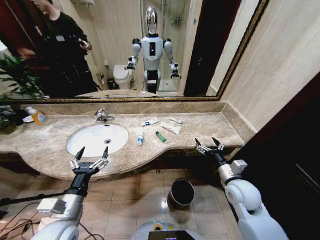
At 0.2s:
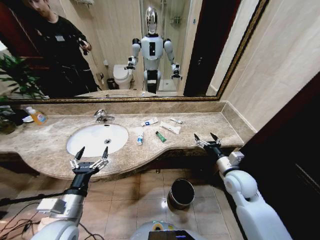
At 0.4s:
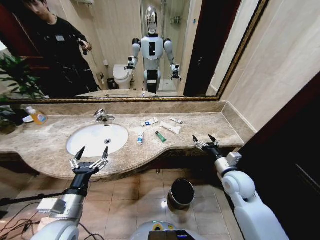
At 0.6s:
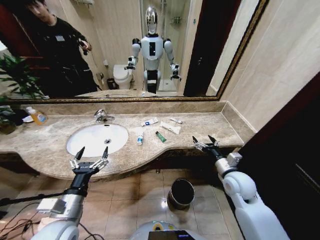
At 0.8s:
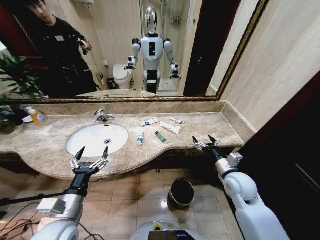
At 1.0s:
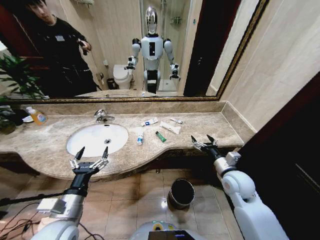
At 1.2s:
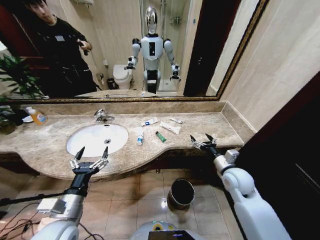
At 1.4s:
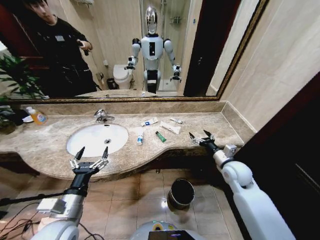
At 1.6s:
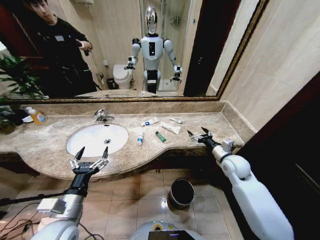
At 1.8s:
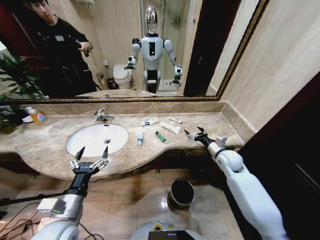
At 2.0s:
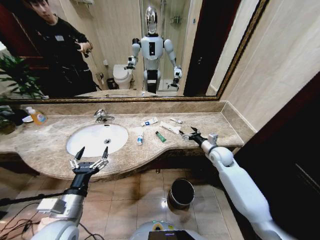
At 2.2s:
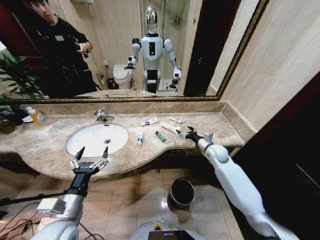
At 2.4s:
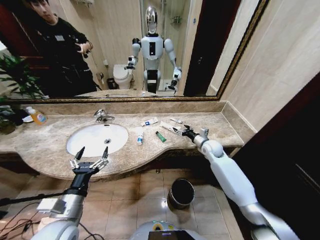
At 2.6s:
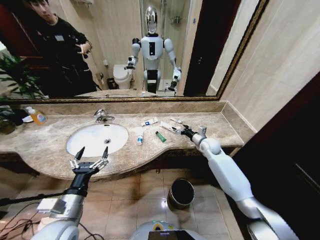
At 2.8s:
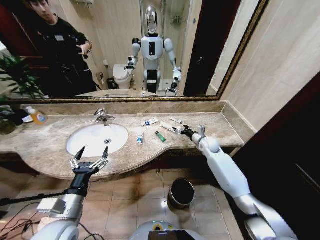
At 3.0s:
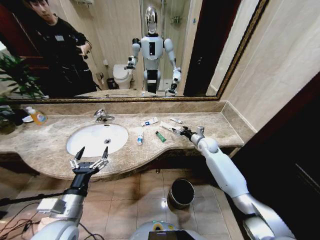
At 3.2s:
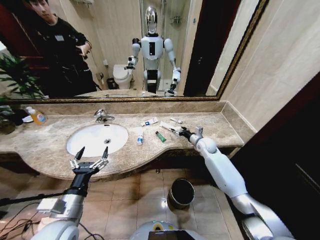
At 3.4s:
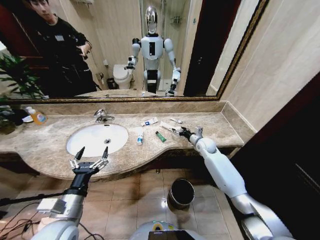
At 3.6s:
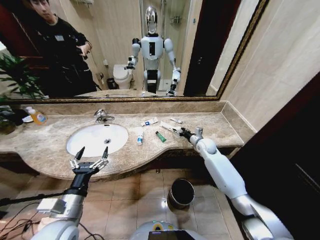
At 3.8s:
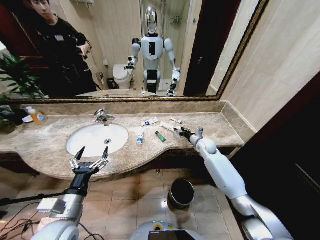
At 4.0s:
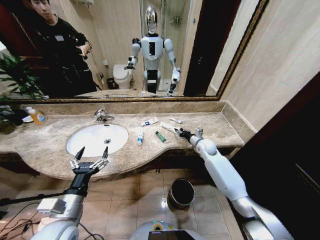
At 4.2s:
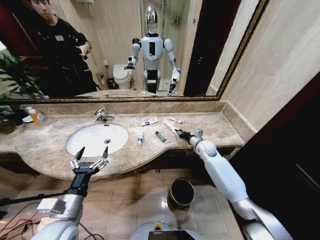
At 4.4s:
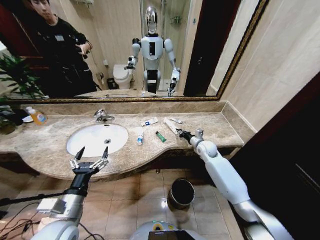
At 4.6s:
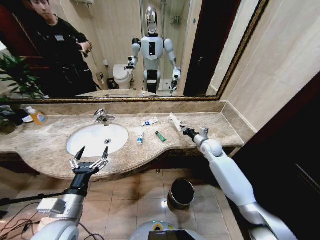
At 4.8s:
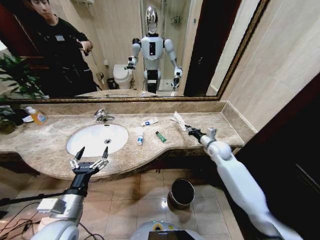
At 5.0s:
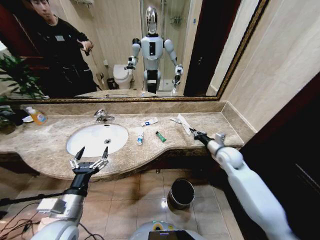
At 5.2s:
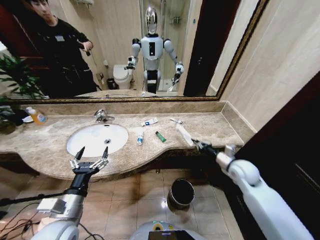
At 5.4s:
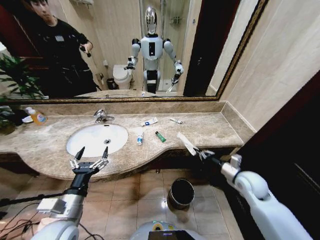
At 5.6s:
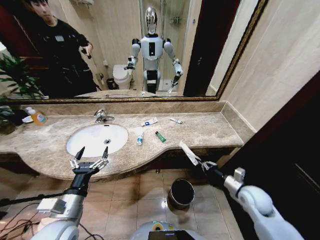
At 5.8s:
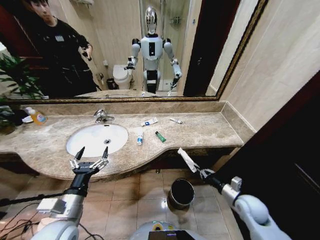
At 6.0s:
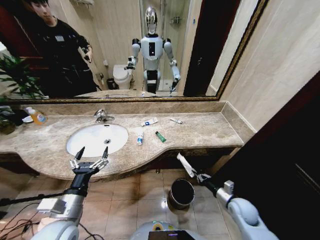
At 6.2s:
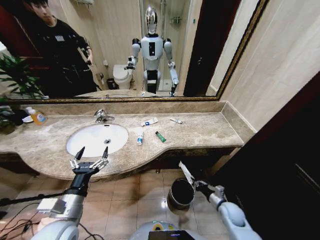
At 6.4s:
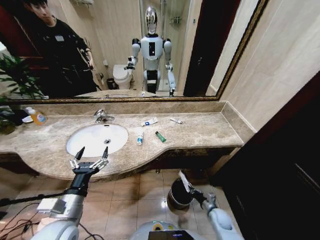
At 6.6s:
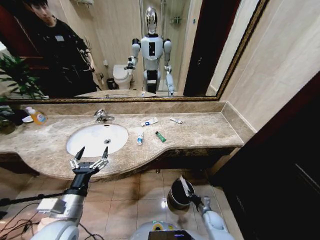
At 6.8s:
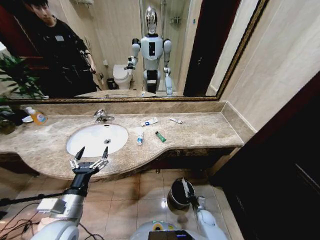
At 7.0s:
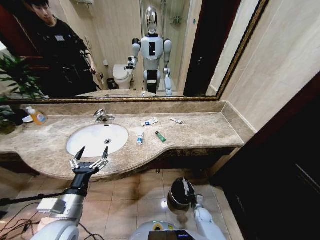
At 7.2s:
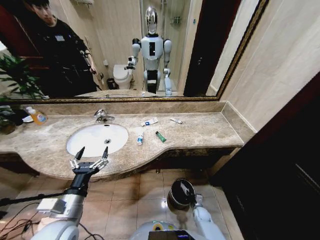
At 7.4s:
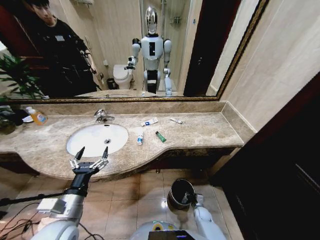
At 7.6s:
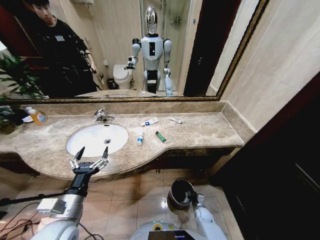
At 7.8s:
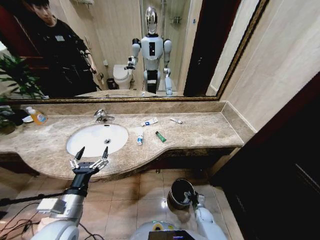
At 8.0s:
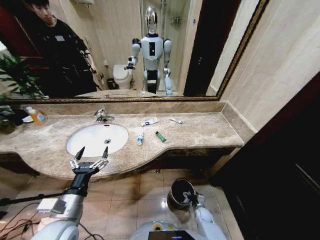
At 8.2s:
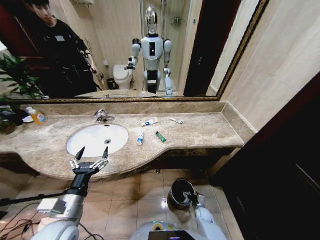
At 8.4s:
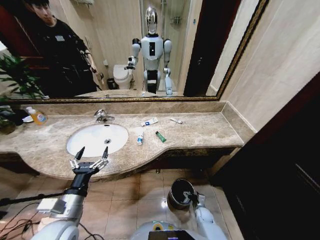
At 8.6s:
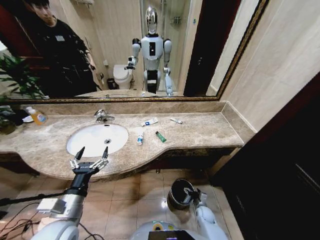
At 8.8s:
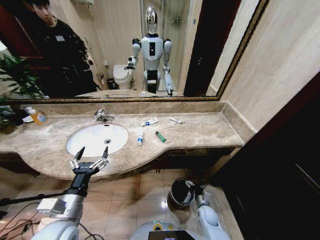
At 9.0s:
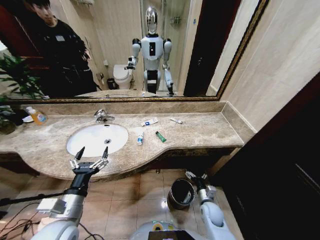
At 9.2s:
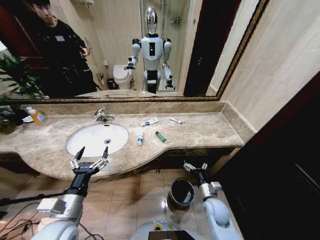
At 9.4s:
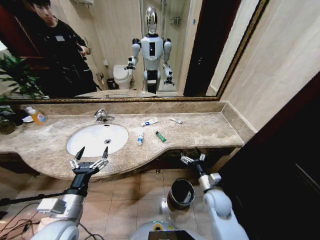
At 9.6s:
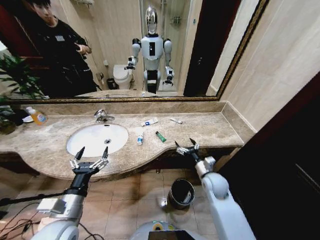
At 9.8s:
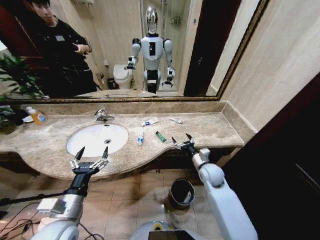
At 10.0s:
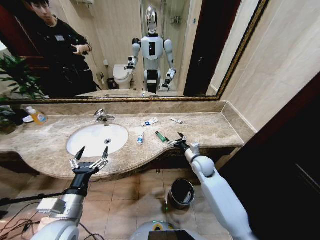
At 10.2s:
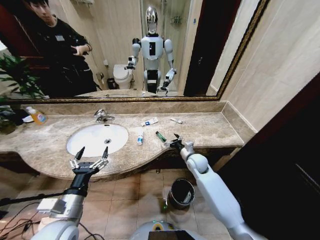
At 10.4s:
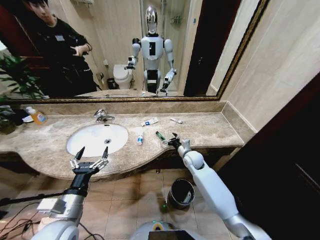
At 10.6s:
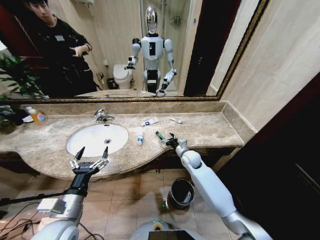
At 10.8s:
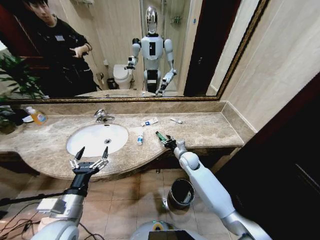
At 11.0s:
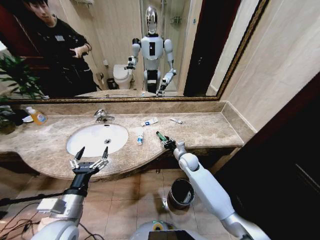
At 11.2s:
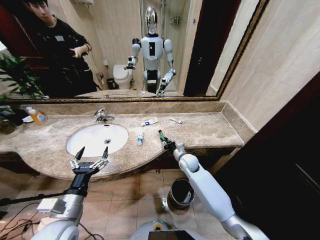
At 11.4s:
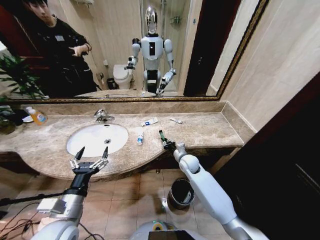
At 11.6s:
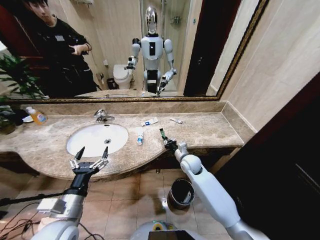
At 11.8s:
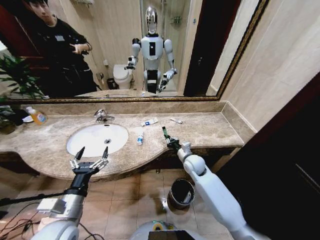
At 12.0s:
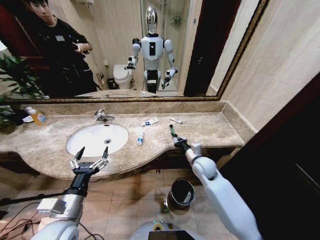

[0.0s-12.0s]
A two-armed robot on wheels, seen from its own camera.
Task of the whole recording: Pick up the trash from the sink and place it in the trash bin.
1.6s to 3.0s: The right gripper shifts some 15 cm forward.
3.0s to 4.4s: The right gripper closes its fingers.
4.4s to 6.0s: The right gripper is displaced backward and downward by approximately 30 cm.
6.0s to 7.6s: The right gripper heads downward and to the left, covering approximately 25 cm, and opens its fingers.
7.6s to 9.0s: The right gripper heads upward, covering about 15 cm, and opens.
9.0s to 10.4s: The right gripper moves forward and upward, some 25 cm.
10.4s to 12.0s: The right gripper goes some 5 cm backward, and closes.

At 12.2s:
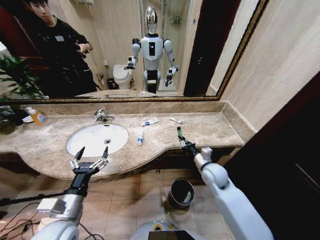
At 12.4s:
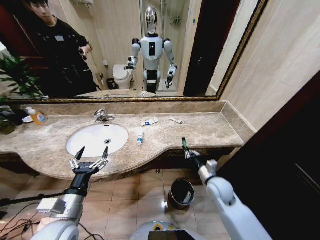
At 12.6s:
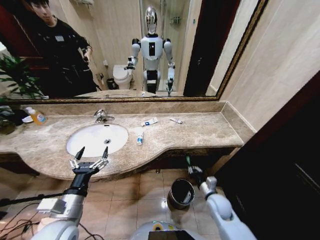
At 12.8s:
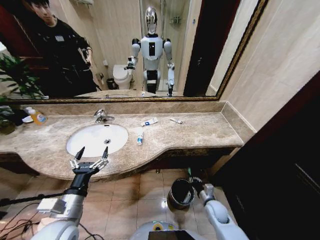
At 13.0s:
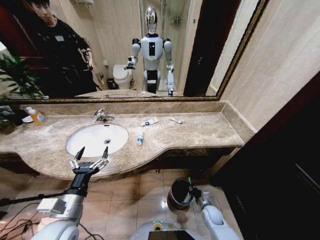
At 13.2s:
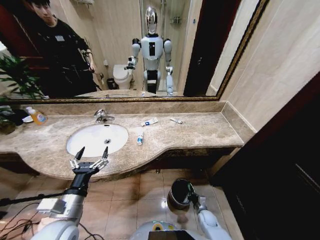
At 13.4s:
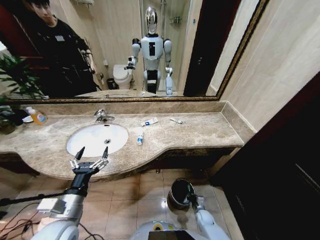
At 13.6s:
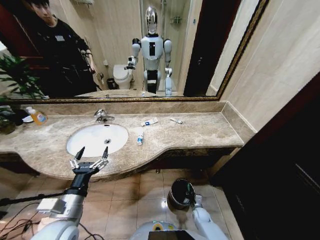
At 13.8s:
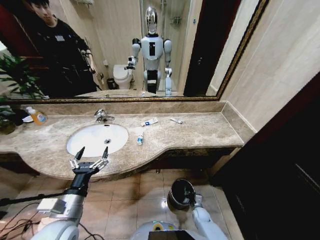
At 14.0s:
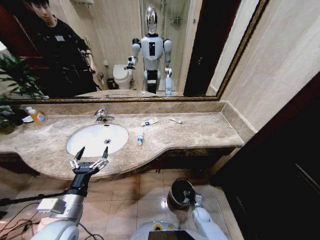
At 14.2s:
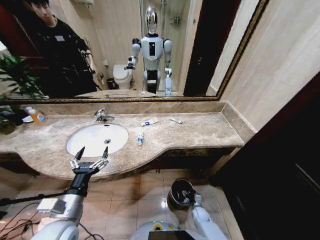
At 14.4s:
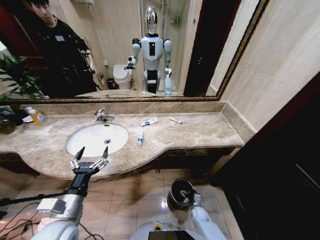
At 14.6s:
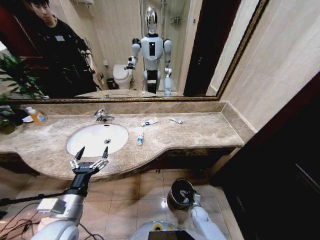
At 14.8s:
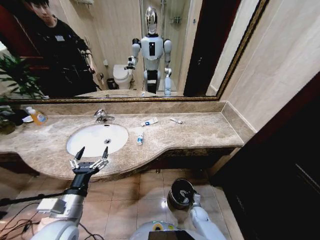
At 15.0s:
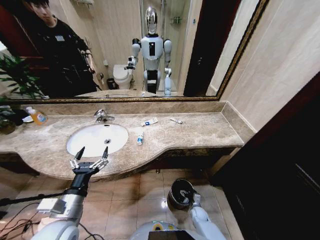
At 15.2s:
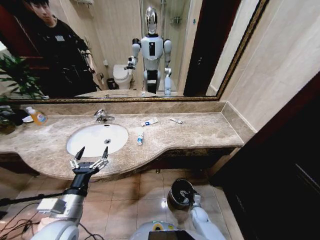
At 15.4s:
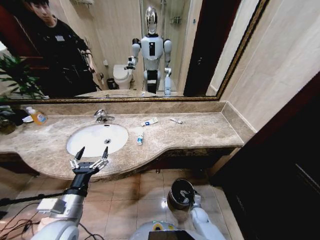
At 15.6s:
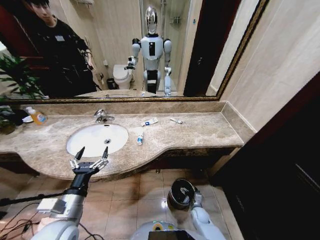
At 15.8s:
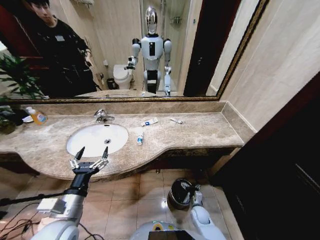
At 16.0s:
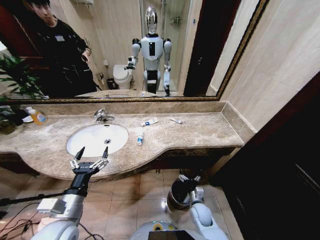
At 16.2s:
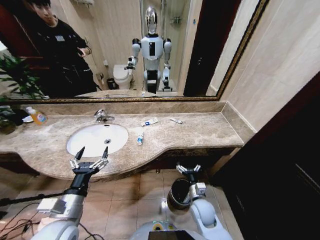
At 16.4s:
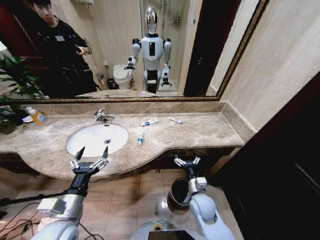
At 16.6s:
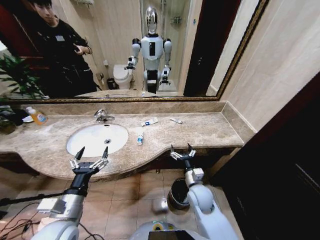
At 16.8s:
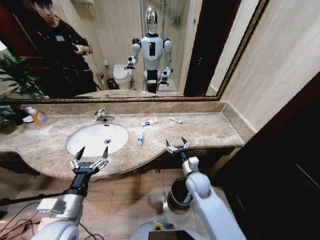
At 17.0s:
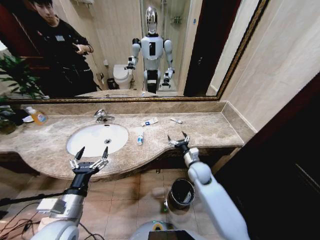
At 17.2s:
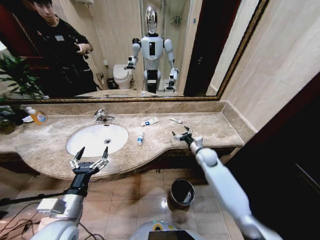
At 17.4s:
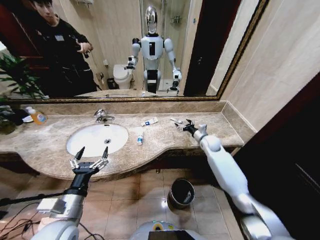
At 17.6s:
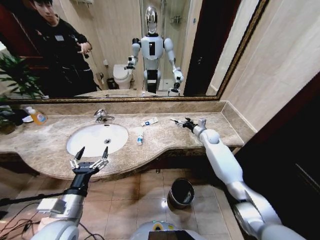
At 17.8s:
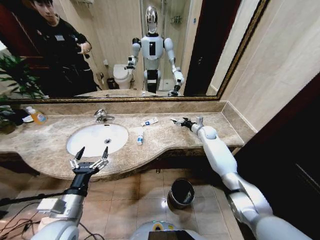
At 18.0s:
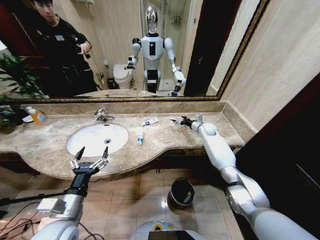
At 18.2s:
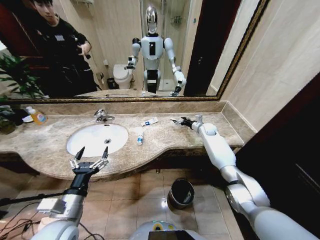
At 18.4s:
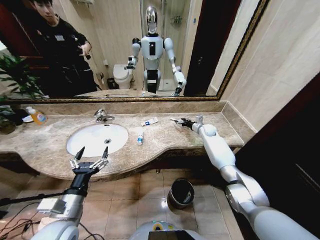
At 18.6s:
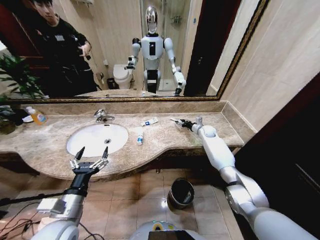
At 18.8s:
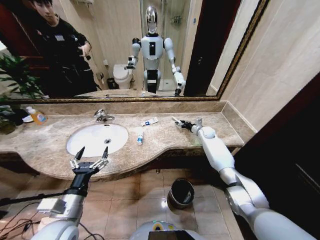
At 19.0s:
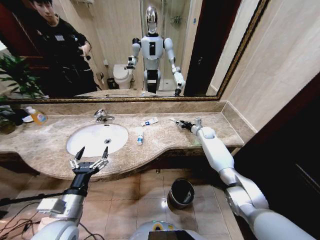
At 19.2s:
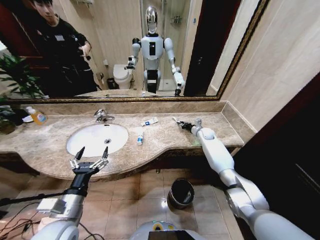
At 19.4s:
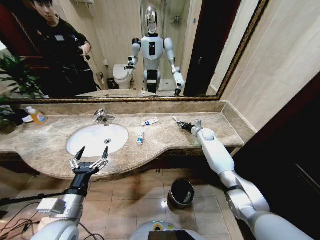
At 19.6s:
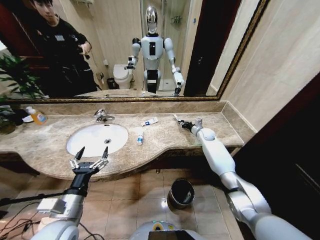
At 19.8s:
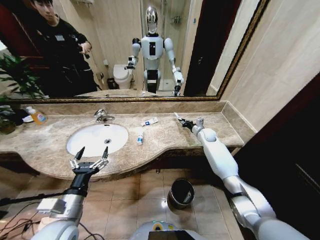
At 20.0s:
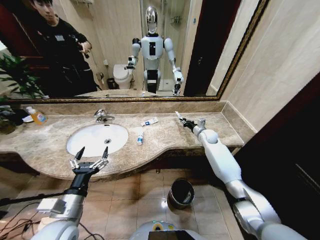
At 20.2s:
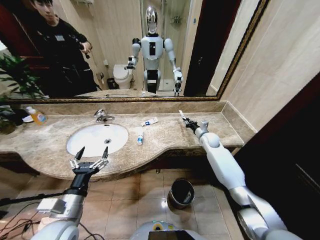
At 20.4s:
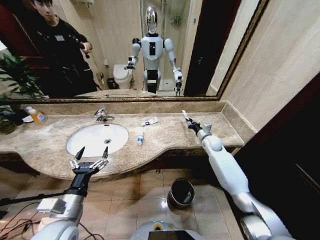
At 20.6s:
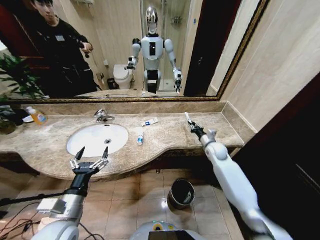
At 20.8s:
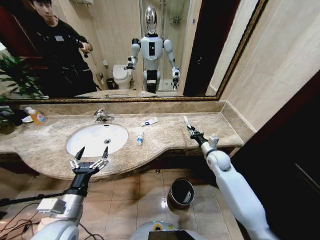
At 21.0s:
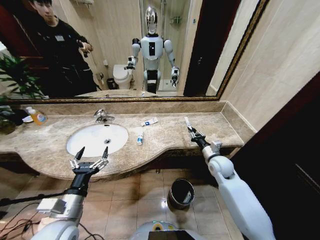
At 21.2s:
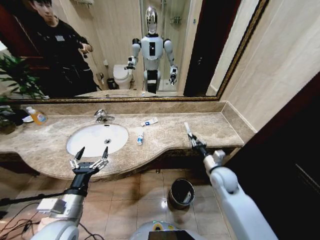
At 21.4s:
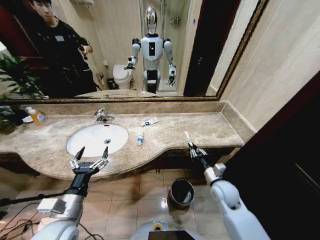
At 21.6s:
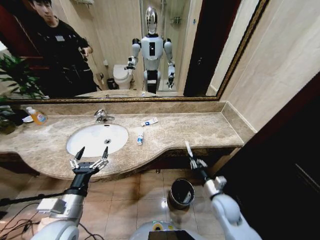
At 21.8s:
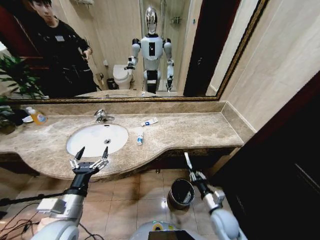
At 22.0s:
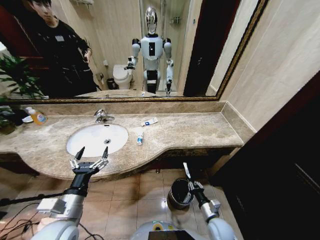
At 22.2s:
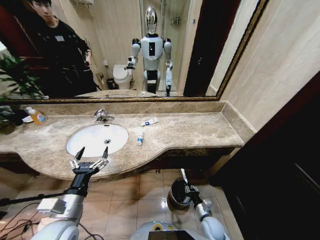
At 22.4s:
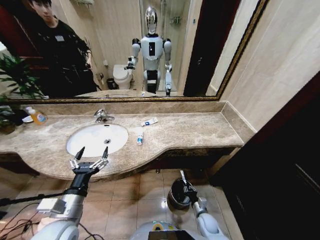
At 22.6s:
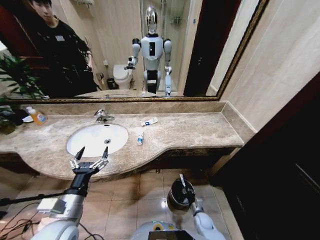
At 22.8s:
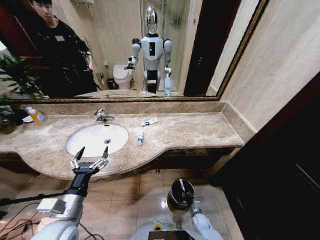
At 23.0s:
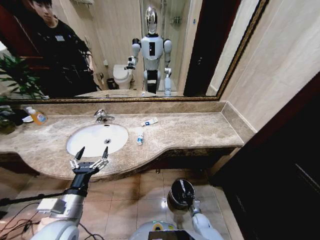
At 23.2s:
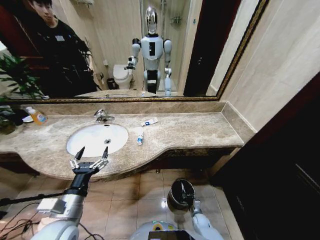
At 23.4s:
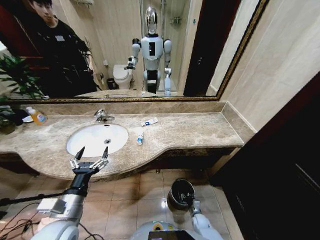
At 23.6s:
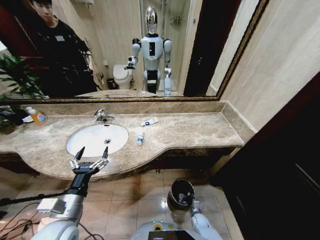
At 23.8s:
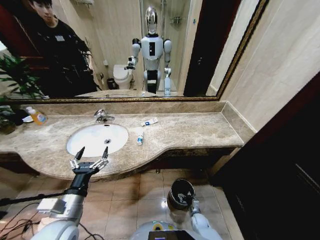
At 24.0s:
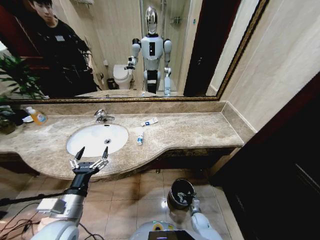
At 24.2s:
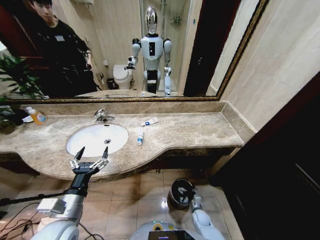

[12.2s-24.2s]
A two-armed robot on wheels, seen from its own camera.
Task of the whole recording: Pick up the trash from the sink and place it in the trash bin.
12.2s to 13.8s: The right gripper shifts roughly 35 cm downward.
15.2s to 16.6s: The right gripper moves upward, about 30 cm.
16.6s to 18.2s: The right gripper moves forward and to the right, roughly 35 cm.
18.2s to 19.8s: The right gripper closes its fingers.
19.8s to 21.2s: The right gripper moves backward, some 25 cm.
21.2s to 22.6s: The right gripper moves downward, approximately 30 cm.
22.6s to 24.2s: The right gripper opens.
